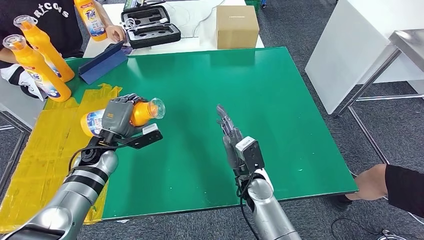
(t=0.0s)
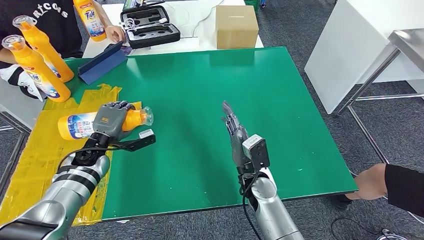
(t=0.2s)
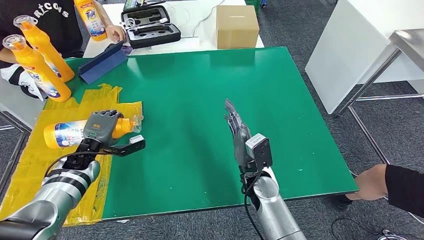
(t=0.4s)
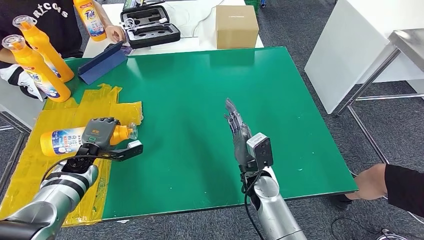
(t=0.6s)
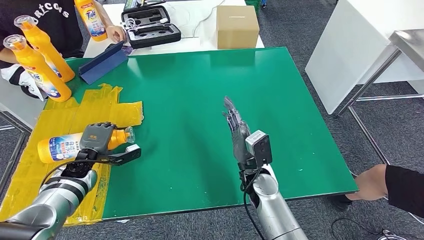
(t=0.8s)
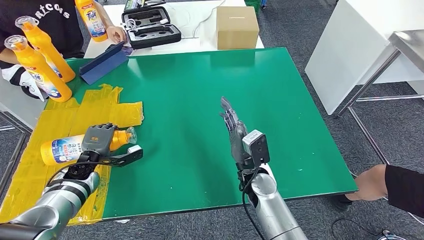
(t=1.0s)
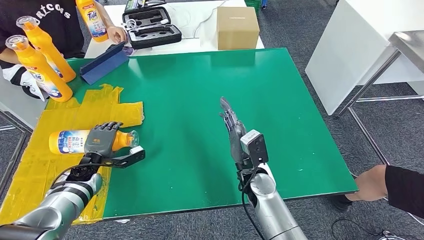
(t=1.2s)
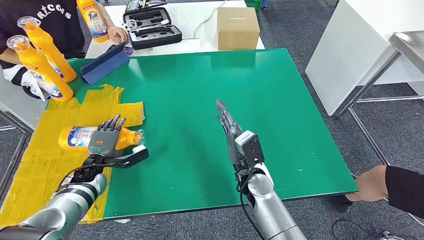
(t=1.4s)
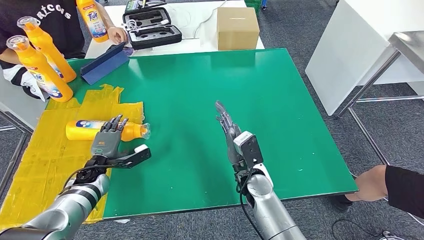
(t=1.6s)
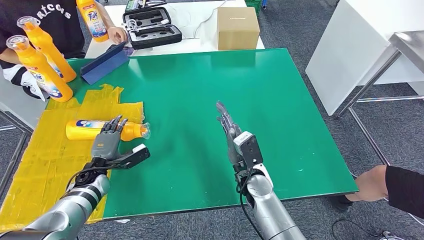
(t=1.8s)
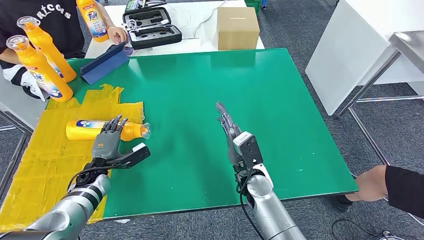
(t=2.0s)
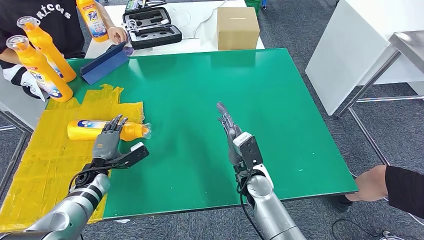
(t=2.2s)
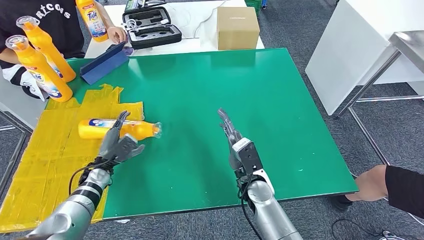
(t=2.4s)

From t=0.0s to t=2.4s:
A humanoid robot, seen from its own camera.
Step, from t=0.0s to t=2.4s: Flip the fast-moving consumer goods bottle to the front side.
From t=0.0s to t=1.2s: The left hand shifts roughly 10 cm downward and to the left.
